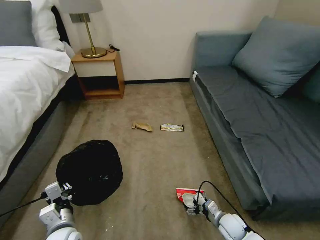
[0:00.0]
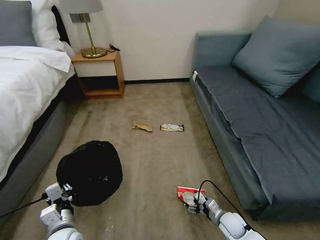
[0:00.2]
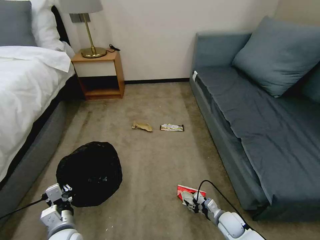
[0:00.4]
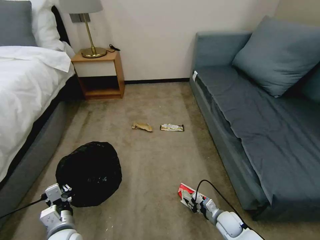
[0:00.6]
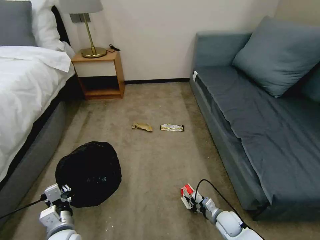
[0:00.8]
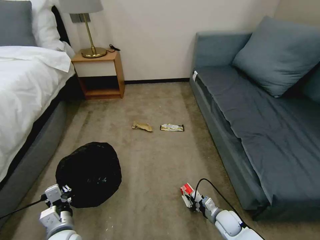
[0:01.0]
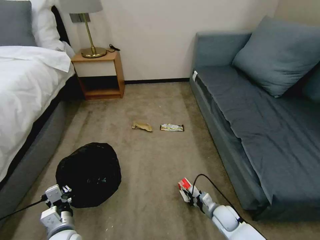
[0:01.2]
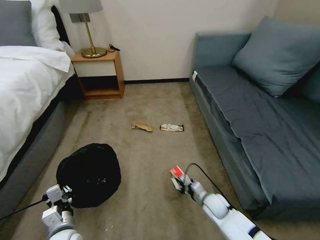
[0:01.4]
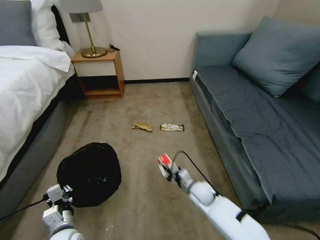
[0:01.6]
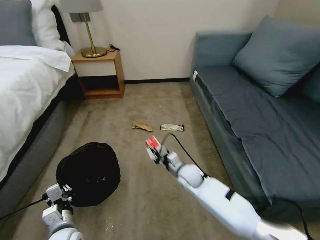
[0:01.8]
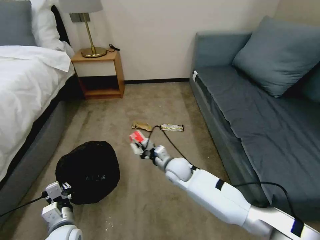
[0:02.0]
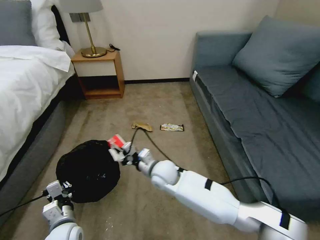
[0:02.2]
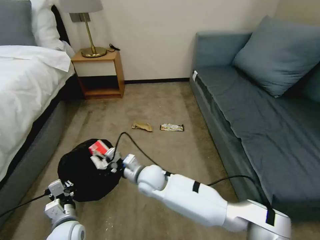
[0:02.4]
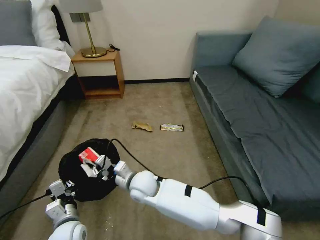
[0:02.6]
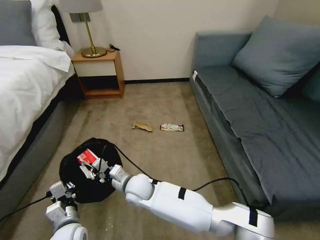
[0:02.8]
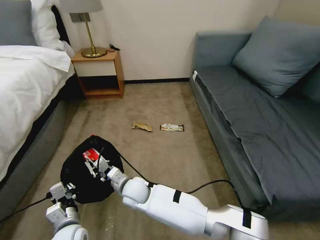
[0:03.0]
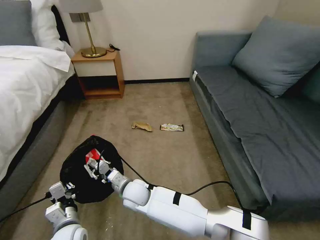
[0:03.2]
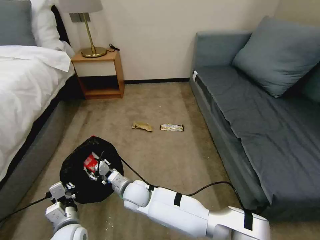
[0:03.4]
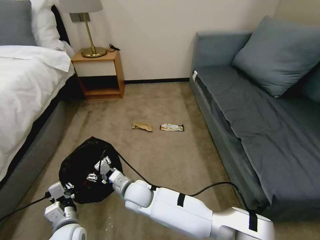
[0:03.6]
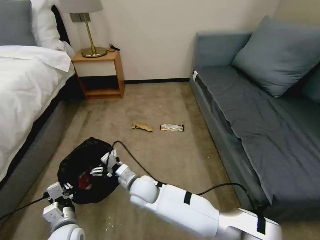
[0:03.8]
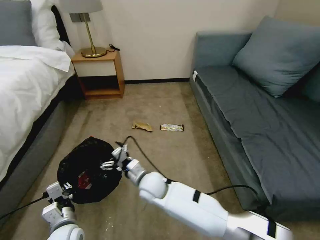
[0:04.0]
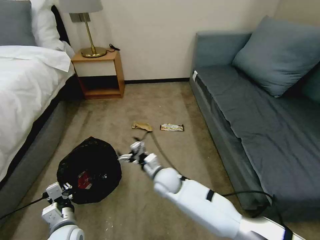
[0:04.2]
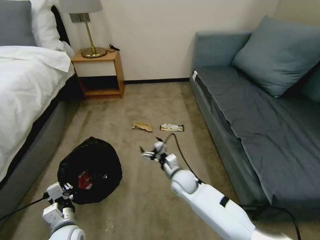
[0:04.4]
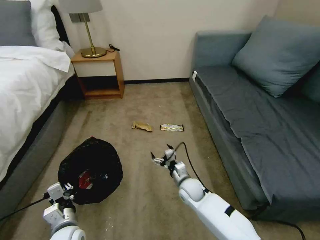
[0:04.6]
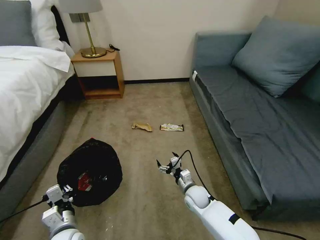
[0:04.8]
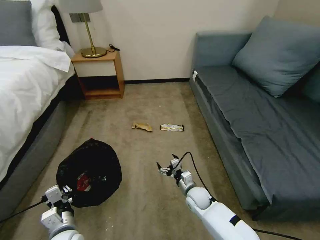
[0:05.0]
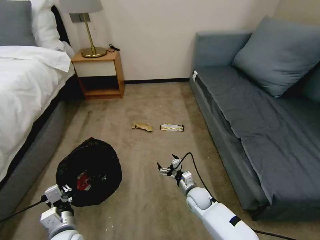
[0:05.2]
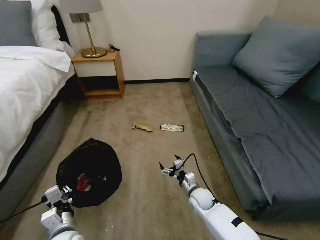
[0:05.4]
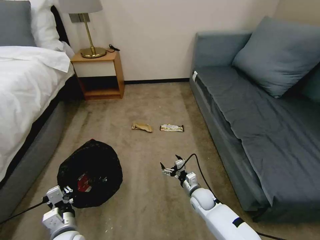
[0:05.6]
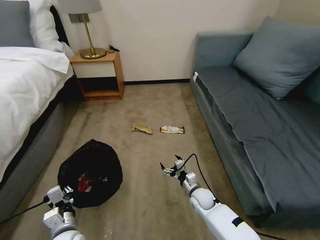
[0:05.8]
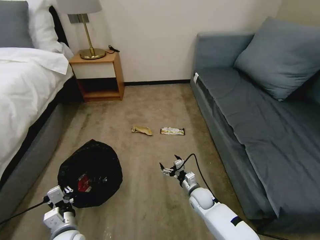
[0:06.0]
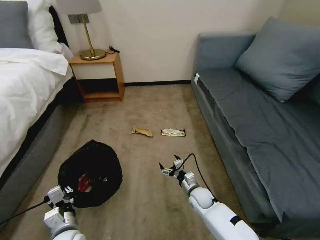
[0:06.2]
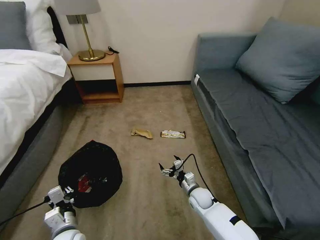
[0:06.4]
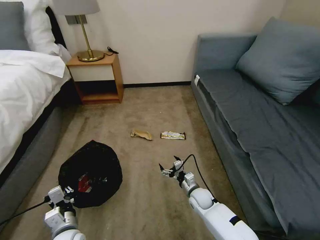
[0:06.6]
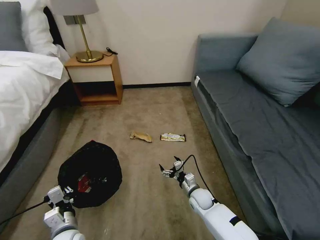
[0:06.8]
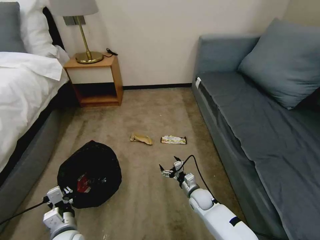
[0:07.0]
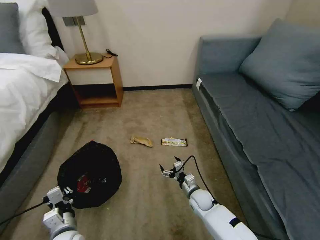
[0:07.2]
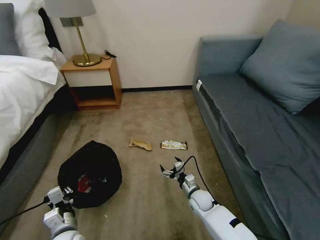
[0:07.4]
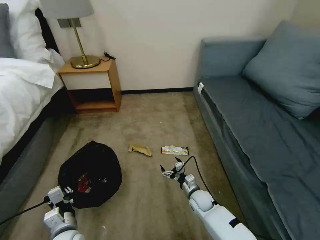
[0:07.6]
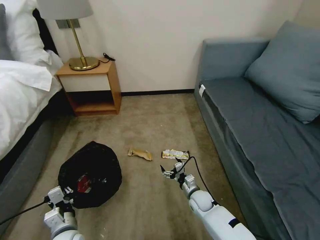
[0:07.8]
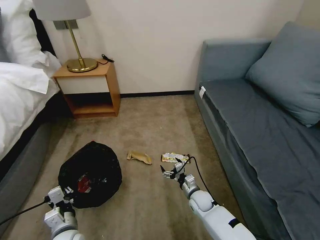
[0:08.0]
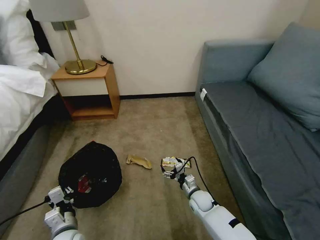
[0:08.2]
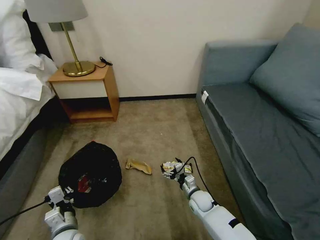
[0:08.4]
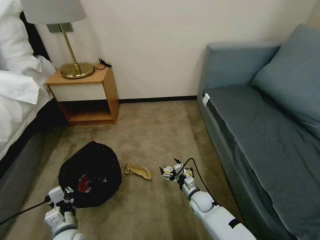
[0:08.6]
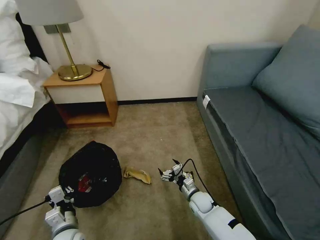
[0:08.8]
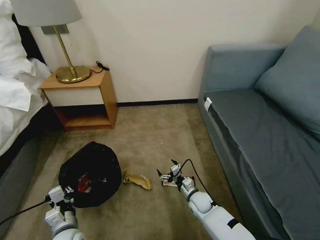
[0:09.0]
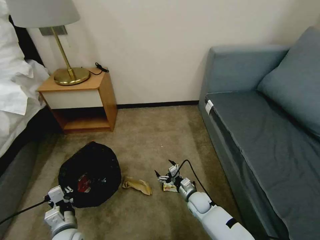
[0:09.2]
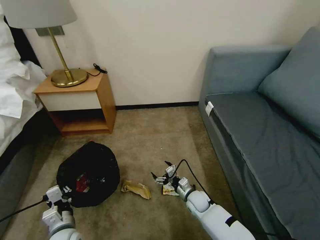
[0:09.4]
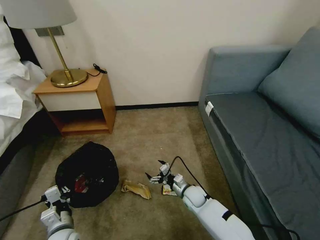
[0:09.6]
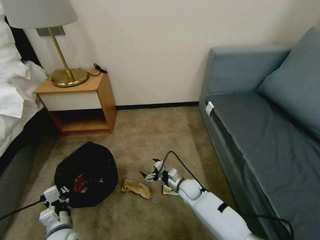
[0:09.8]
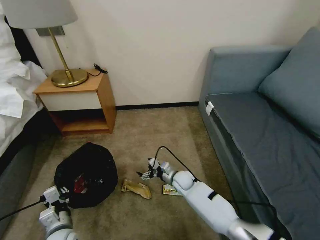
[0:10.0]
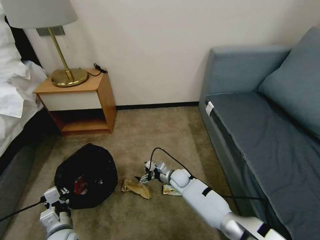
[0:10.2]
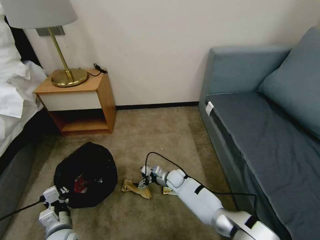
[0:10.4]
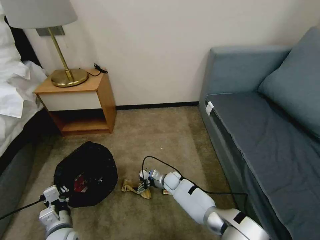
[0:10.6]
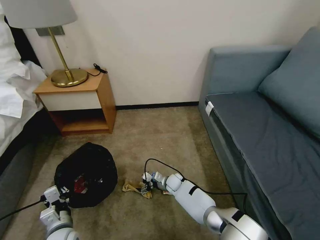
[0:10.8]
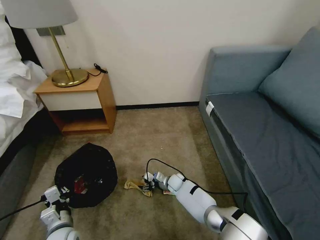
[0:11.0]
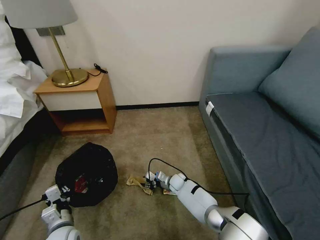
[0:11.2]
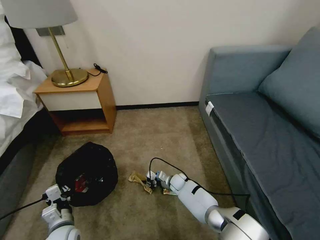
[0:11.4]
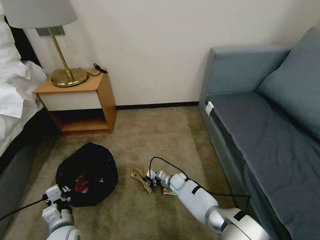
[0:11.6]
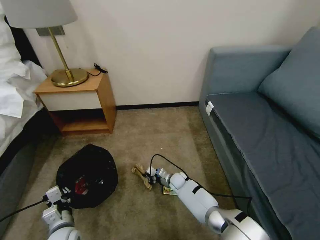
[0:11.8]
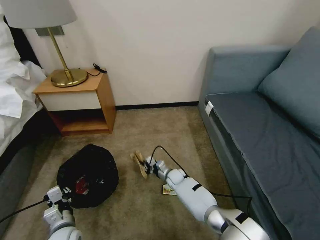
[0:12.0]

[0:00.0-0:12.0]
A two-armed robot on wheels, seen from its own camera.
Task of the whole recording: Pick up the trash bin, then pick up the garbage on the floor and place it into the trash bin.
0:00.0 to 0:01.6: The right gripper is displaced to the left, forward and upward by some 15 cm, and closes its fingers.
0:01.6 to 0:03.0: The right gripper goes some 25 cm to the left.
0:03.0 to 0:04.4: The right gripper moves to the right, some 20 cm, and opens up.
0:04.4 to 0:06.0: The right gripper is displaced downward and to the right by roughly 15 cm.
0:09.0 to 0:10.4: The right gripper heads forward and to the left, covering approximately 15 cm.
0:10.4 to 0:12.0: The right gripper closes its fingers.

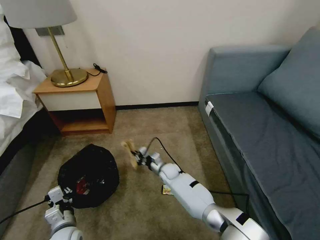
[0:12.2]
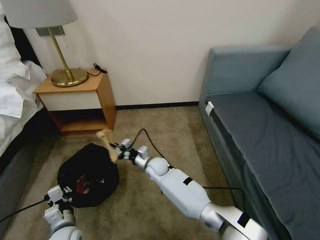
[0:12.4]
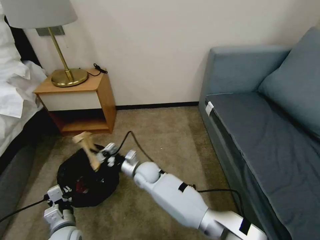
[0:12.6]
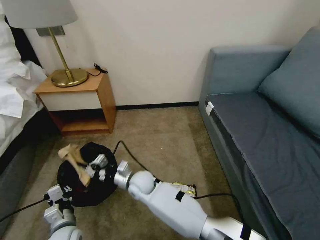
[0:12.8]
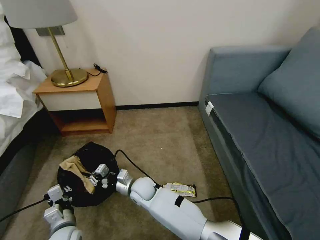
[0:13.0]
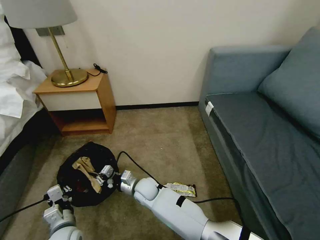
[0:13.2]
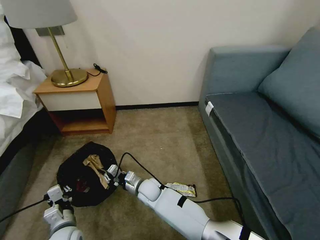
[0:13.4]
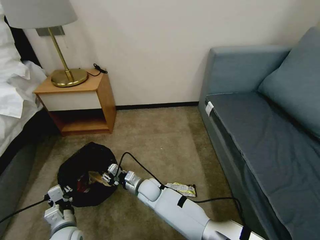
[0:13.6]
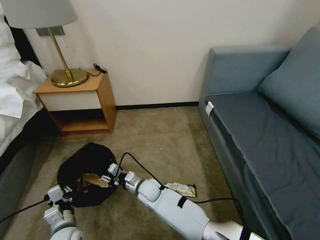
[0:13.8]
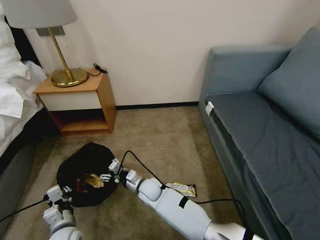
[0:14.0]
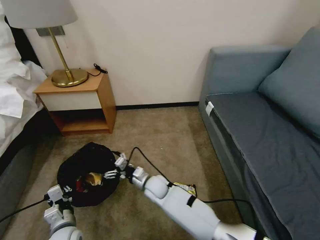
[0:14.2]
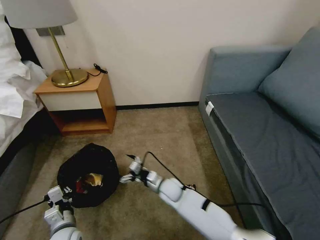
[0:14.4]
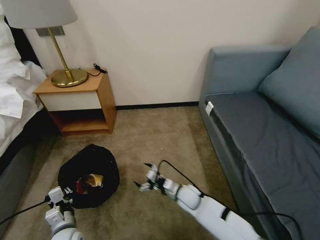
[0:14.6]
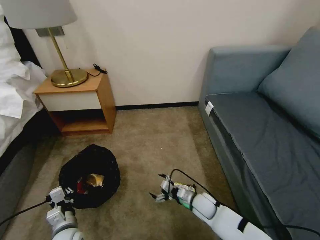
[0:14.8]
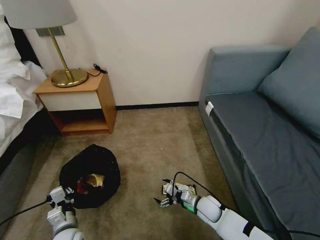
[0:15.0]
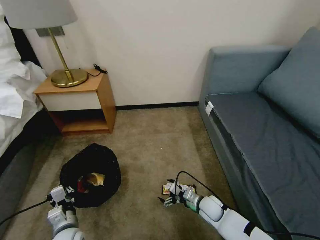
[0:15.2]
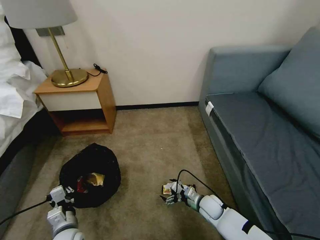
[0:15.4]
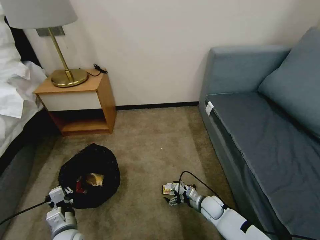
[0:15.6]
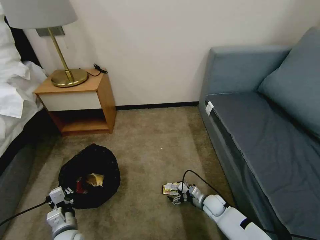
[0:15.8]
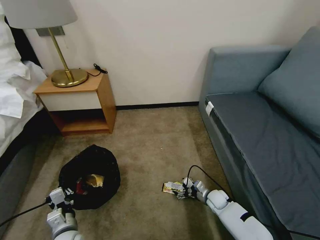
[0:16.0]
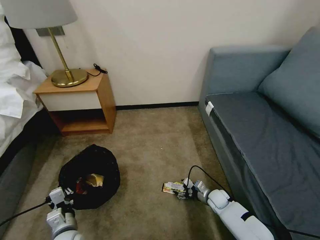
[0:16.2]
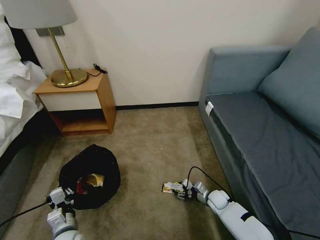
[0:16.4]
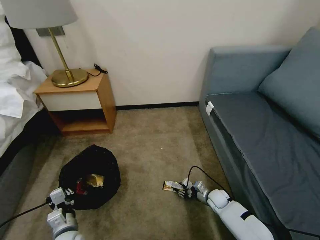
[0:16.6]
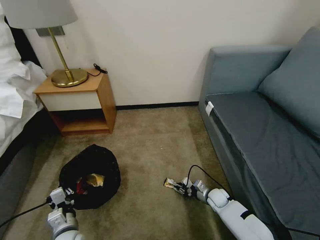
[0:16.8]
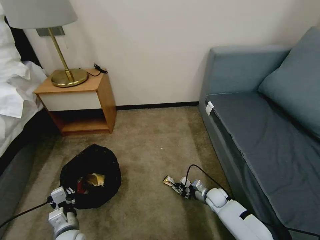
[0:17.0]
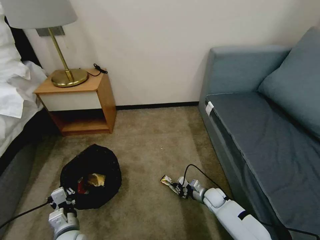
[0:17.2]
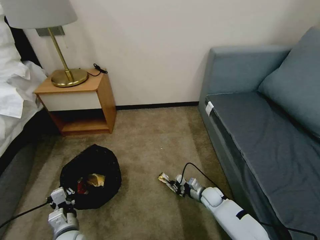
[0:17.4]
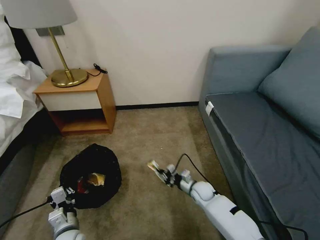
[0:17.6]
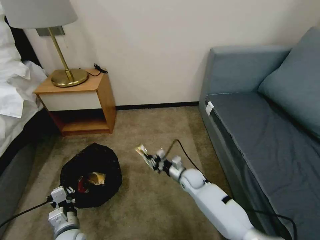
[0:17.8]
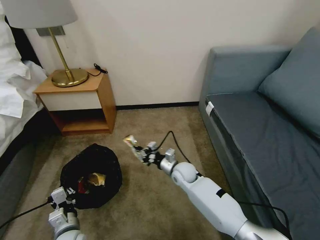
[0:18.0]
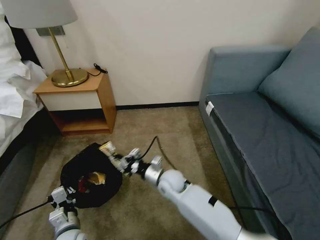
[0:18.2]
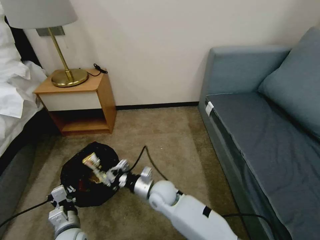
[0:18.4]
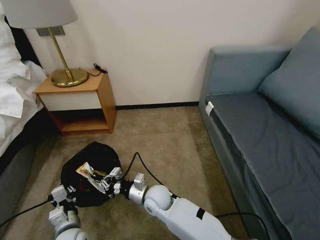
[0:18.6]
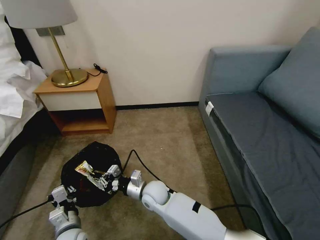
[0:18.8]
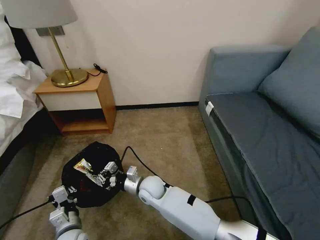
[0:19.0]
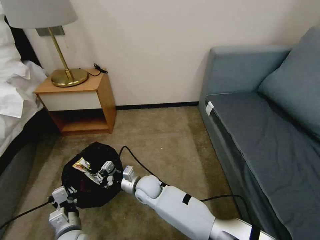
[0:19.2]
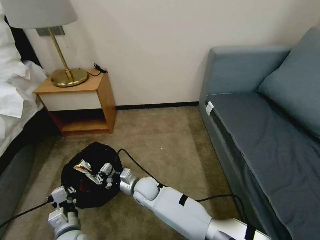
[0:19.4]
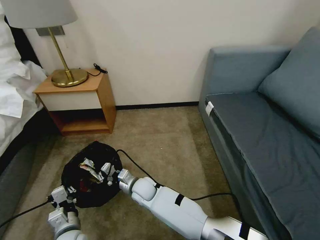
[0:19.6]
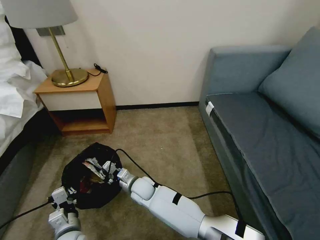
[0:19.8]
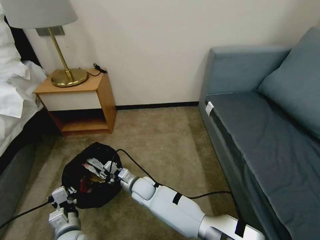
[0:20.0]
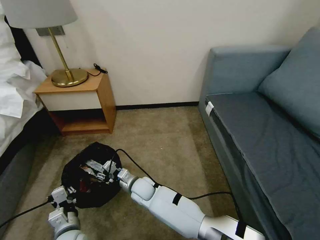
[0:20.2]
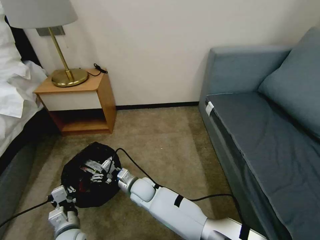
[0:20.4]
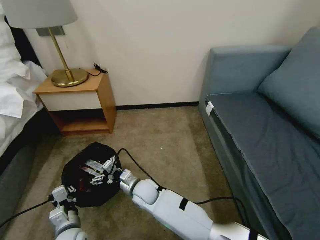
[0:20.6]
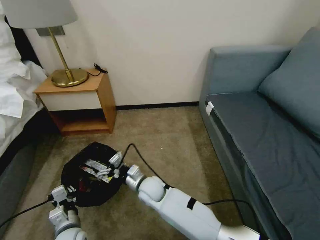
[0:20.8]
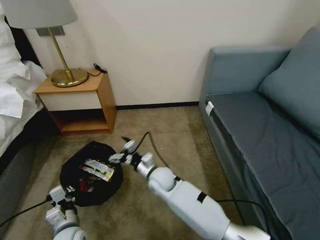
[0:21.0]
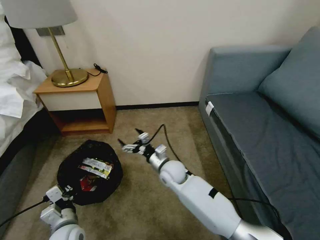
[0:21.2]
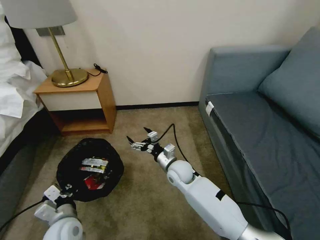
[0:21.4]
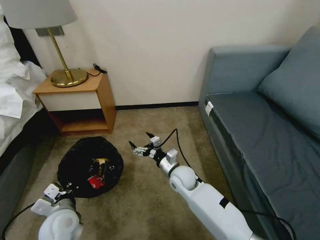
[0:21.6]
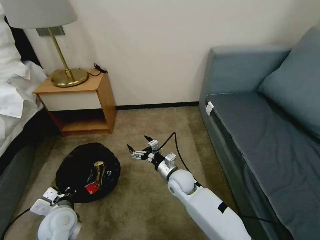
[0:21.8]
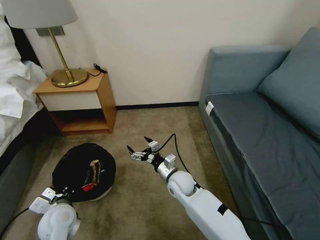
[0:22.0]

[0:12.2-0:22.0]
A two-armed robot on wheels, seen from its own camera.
Task of the whole recording: Pick up the trash bin, then pick up the garbage on the floor and place it into the trash bin.
0:12.2 to 0:13.6: The right gripper moves backward and to the left, roughly 15 cm.
0:13.6 to 0:15.0: The right gripper travels to the right by about 25 cm, and opens.
0:15.0 to 0:16.4: The right gripper heads to the right and downward, covering some 10 cm.
0:16.4 to 0:17.8: The right gripper travels to the left and upward by about 20 cm, and closes its fingers.
0:17.8 to 0:19.2: The right gripper is displaced to the left by approximately 20 cm.
0:19.2 to 0:20.6: The right gripper opens its fingers.
0:20.6 to 0:22.0: The left gripper shifts about 5 cm upward, while the right gripper moves to the right, roughly 15 cm.
